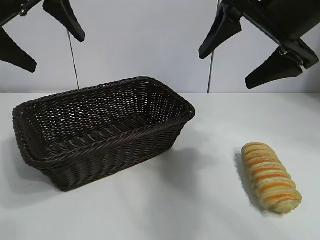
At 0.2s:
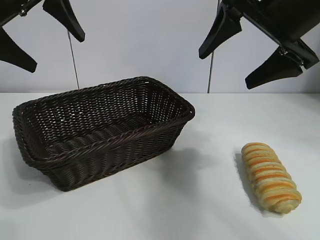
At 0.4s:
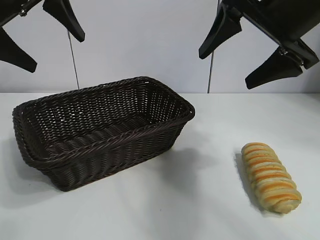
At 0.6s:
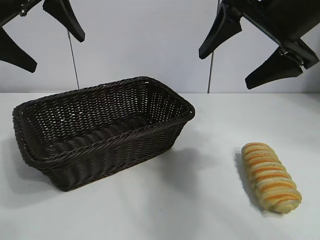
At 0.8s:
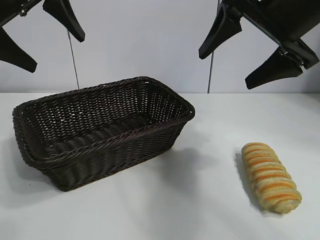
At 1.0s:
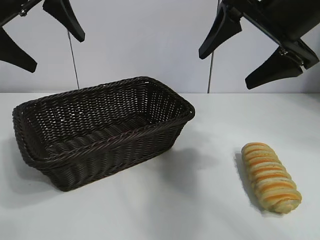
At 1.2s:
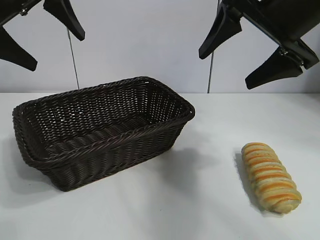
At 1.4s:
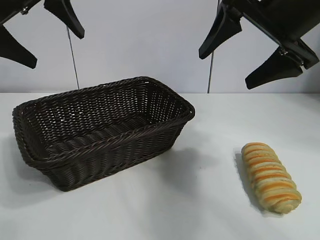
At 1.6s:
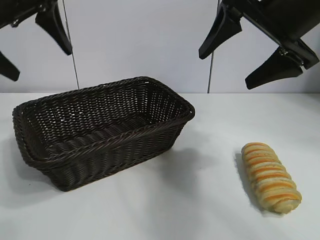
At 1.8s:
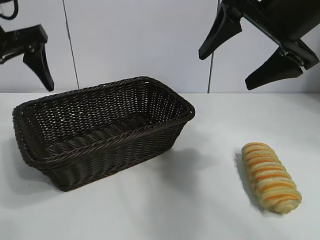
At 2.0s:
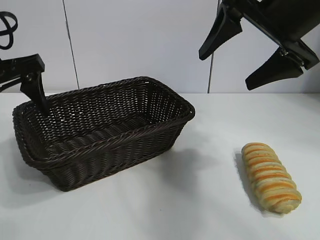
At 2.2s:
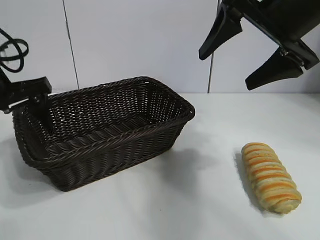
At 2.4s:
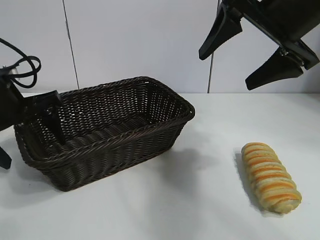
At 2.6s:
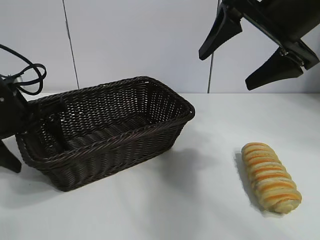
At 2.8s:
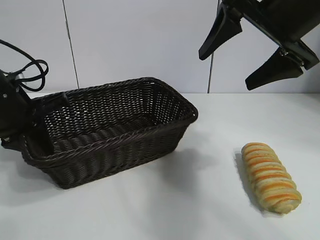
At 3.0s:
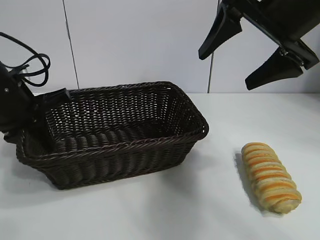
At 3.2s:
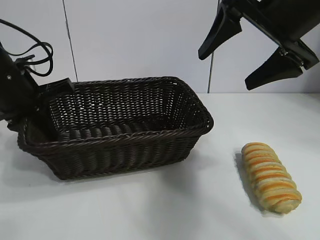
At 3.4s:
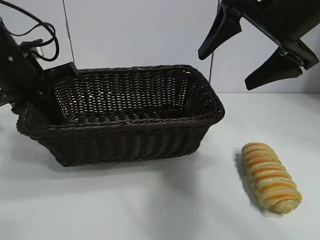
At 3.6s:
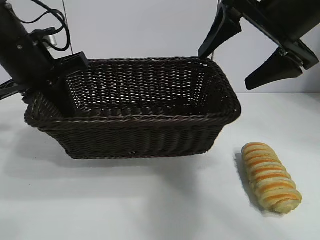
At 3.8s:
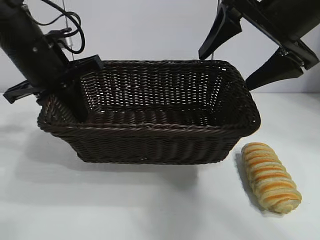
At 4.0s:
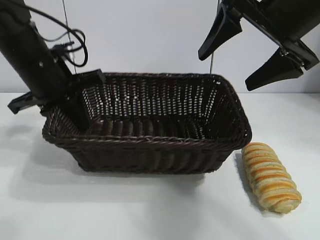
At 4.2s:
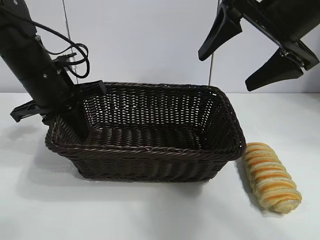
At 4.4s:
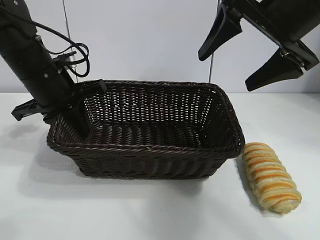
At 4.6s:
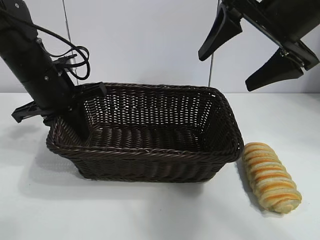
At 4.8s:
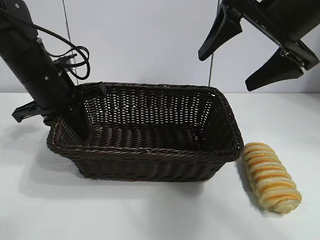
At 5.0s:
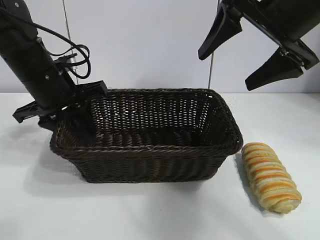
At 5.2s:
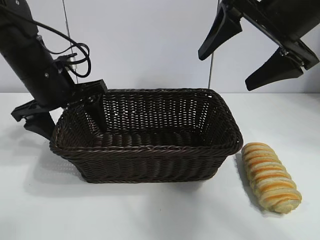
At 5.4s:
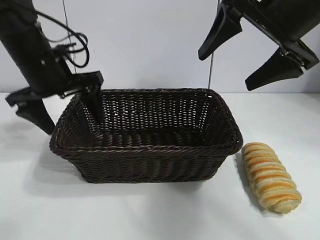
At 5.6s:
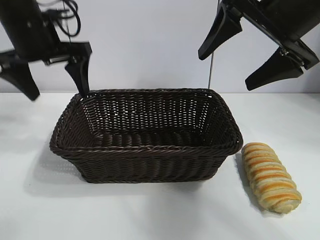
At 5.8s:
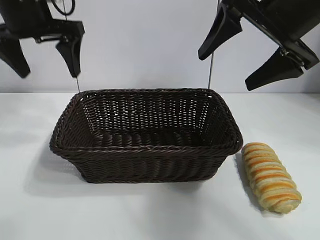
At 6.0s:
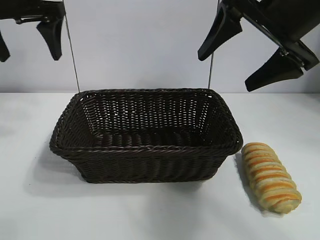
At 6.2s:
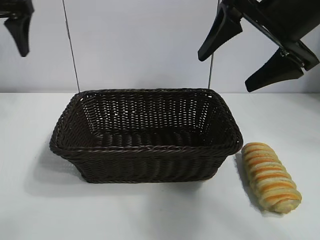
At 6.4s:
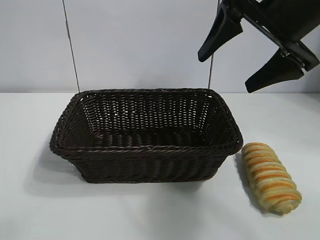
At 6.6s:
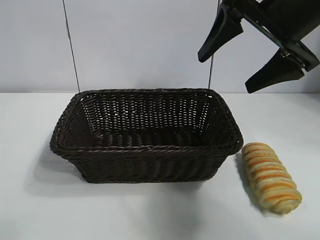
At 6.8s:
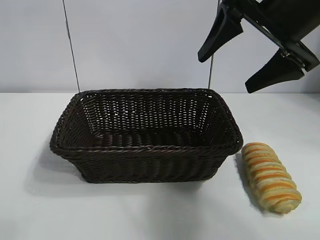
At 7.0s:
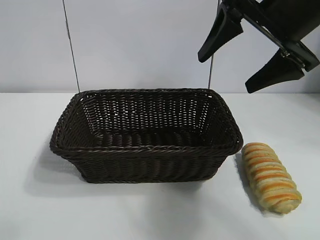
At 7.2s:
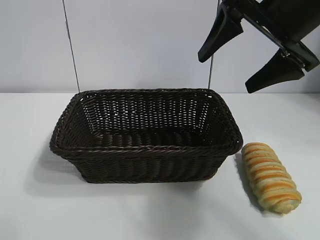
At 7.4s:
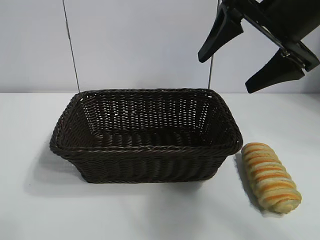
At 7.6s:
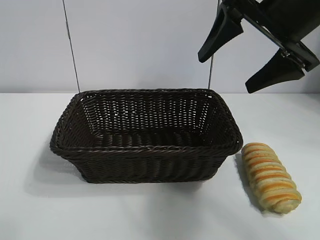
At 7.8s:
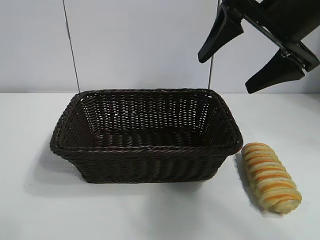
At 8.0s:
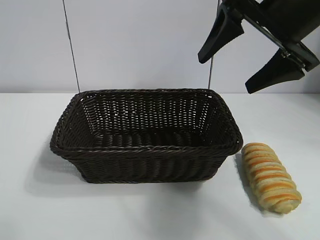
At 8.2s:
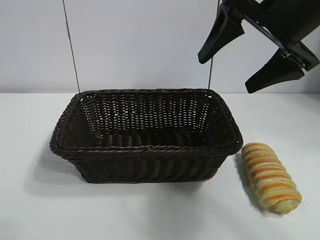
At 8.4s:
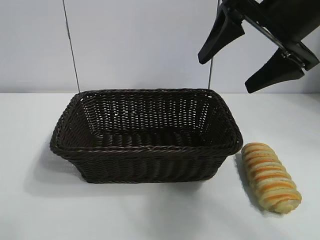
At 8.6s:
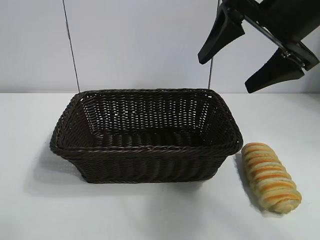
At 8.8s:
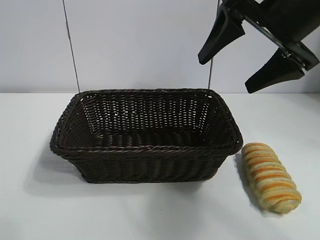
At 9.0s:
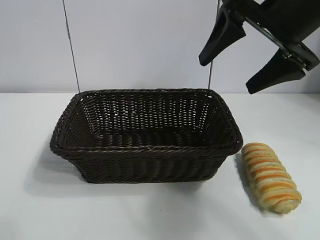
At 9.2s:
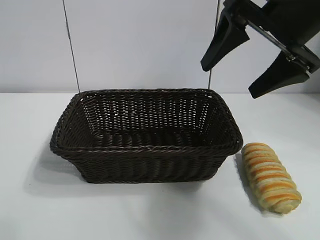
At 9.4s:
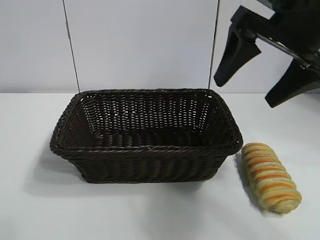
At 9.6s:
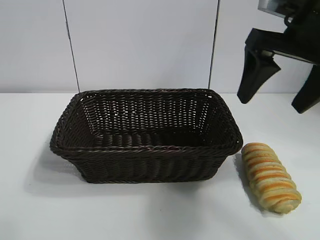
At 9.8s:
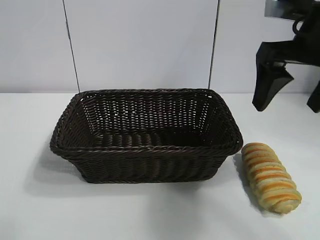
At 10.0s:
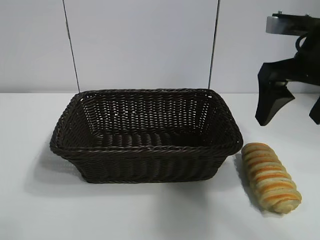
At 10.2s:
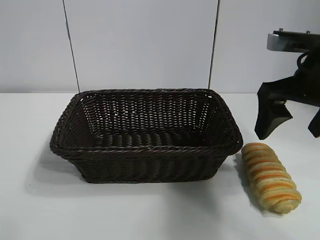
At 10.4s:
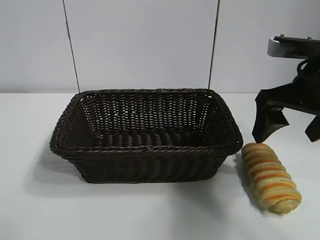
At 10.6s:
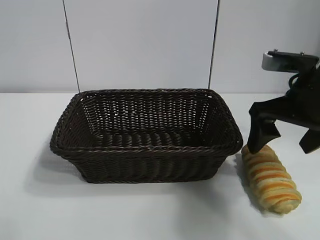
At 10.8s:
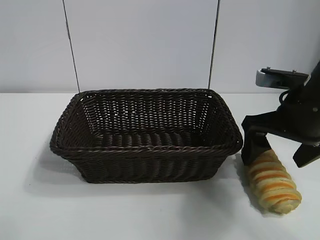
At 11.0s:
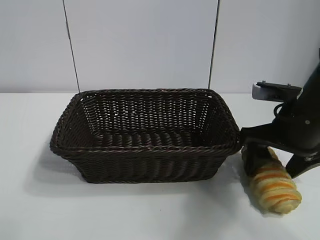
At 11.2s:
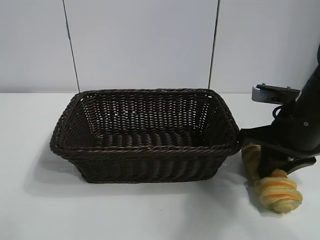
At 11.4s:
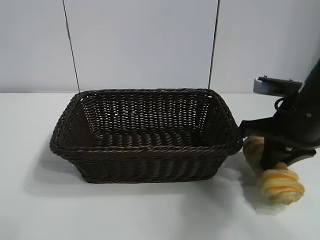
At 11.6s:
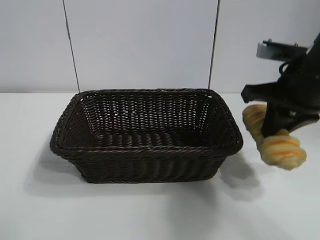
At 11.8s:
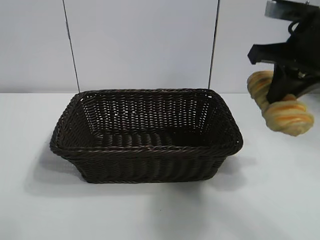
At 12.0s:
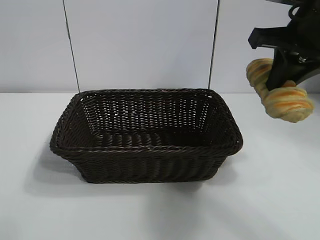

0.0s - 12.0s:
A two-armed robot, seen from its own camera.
Task of the whole recording: pick up the long bread and put it into the basket.
Step, 1.2s - 2.6s: Grasp the basket with the left gripper.
Step, 3.0s - 5.2s: Place the basket in the center of the table with the left gripper.
Step, 5.4s - 11.2s: Grasp the long bread with right gripper.

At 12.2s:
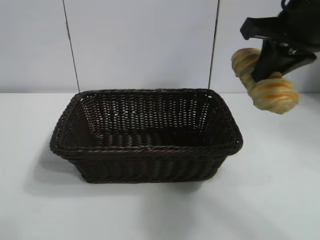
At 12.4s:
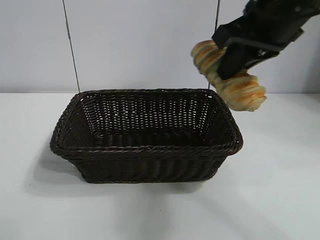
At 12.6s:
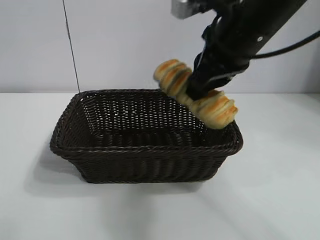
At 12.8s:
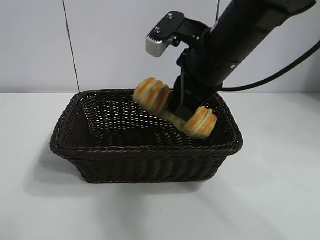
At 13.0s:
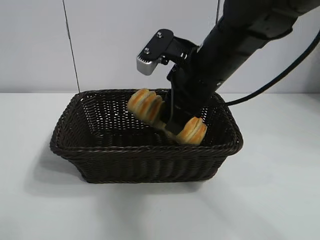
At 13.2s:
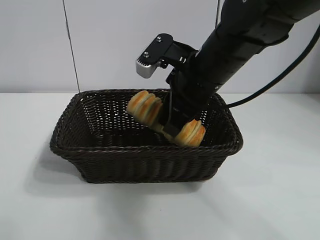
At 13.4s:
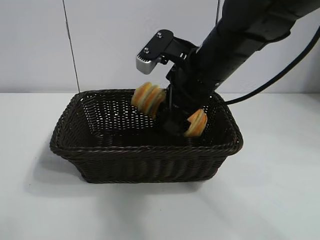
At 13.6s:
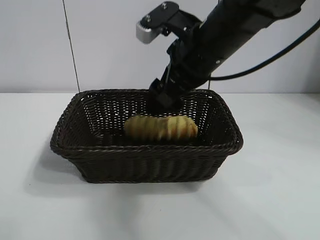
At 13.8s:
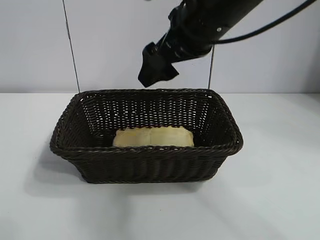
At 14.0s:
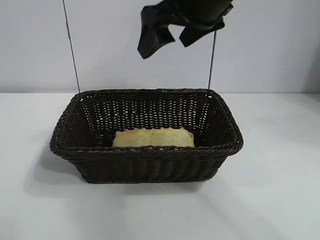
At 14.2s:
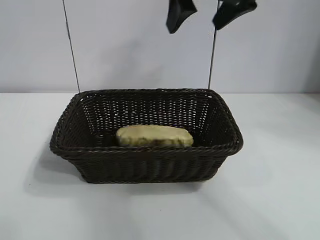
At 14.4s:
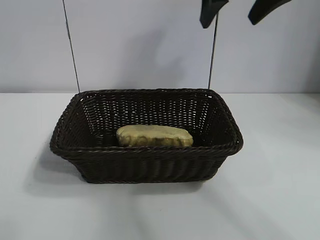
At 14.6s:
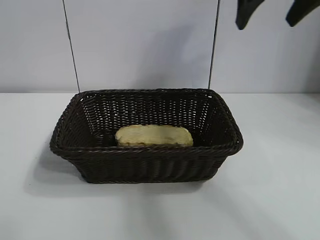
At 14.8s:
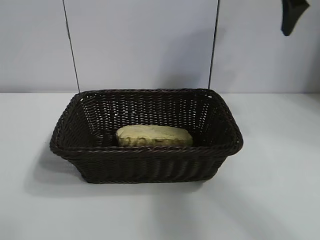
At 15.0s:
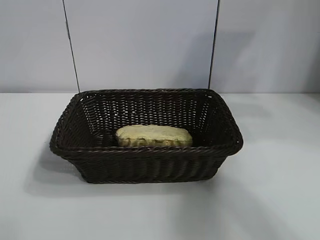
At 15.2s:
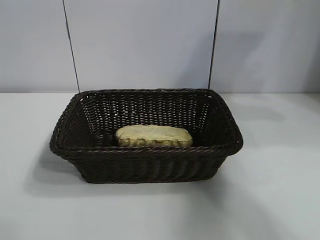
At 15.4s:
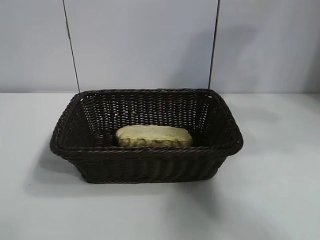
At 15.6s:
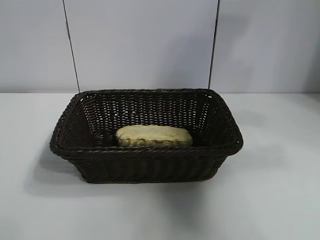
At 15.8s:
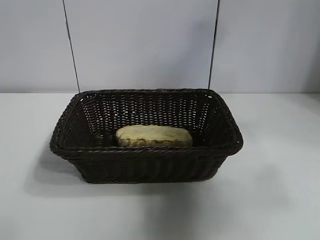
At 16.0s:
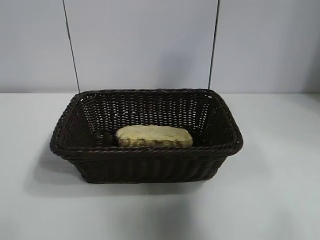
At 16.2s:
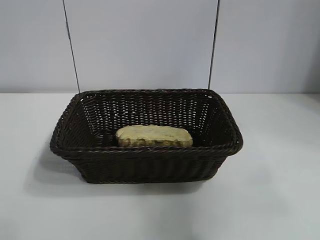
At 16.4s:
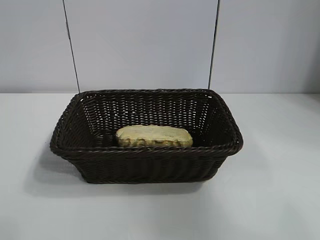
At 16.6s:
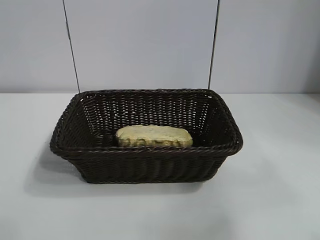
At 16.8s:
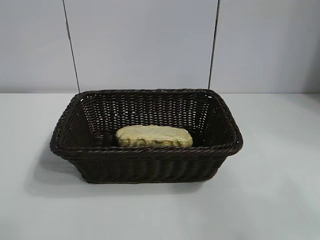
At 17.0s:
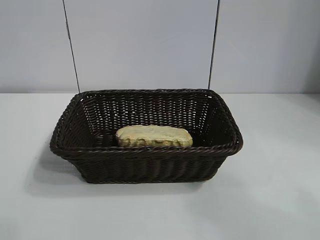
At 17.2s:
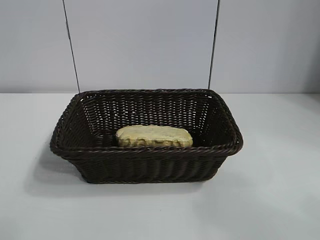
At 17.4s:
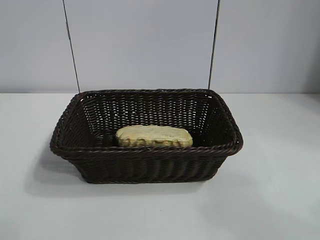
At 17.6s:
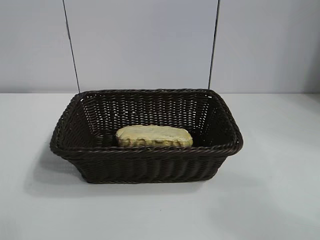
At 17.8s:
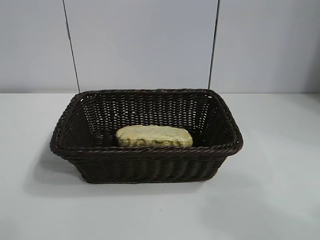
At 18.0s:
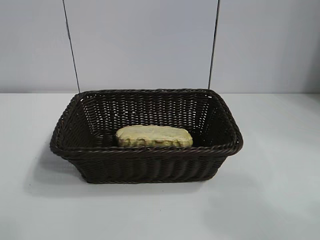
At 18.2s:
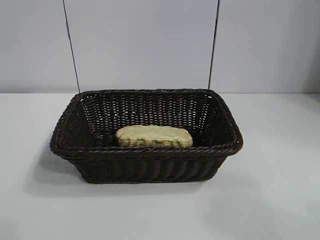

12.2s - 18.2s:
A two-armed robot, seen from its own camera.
Task of the whole recording: pick up the long bread and put it into the basket.
Step, 12.2s - 13.8s: Place the long bread in the basket with right gripper.
